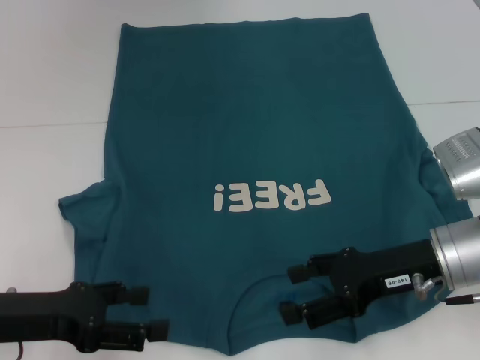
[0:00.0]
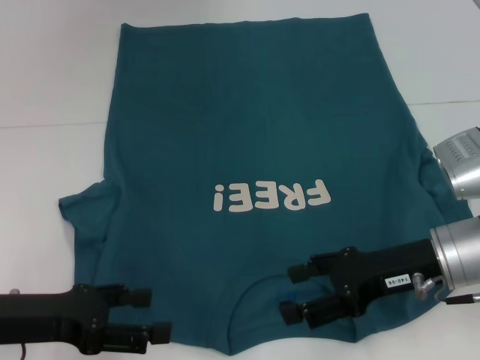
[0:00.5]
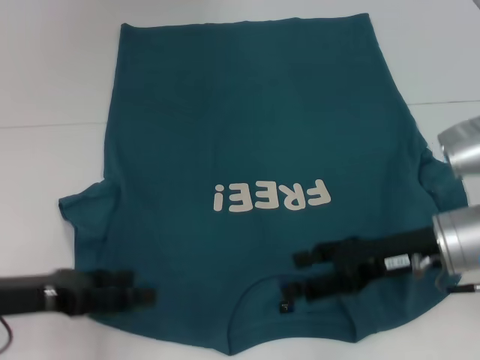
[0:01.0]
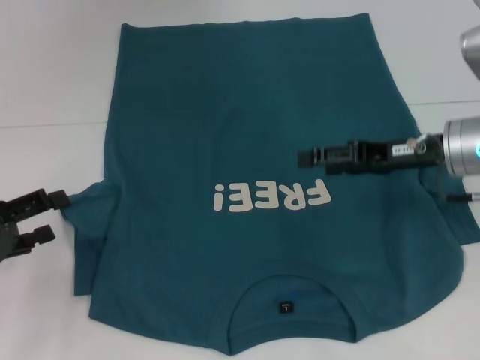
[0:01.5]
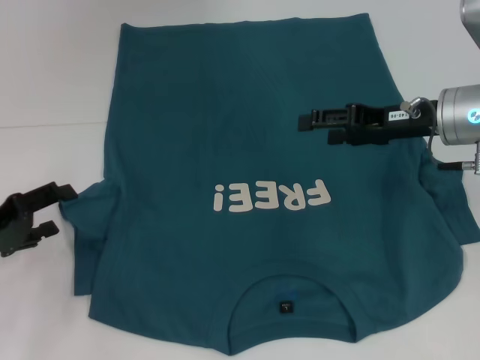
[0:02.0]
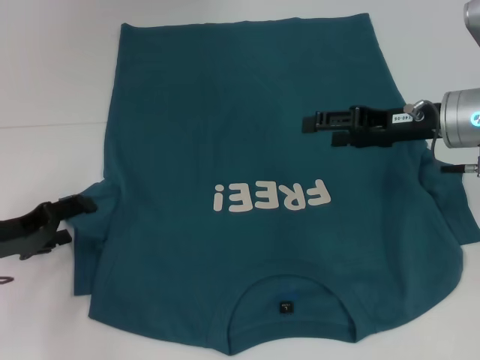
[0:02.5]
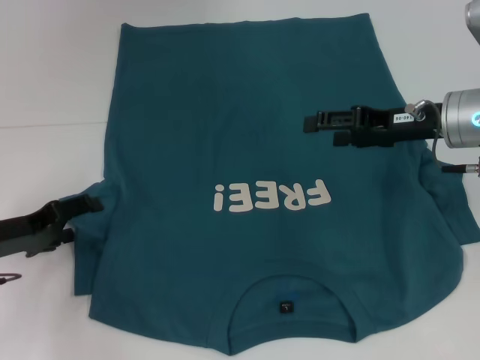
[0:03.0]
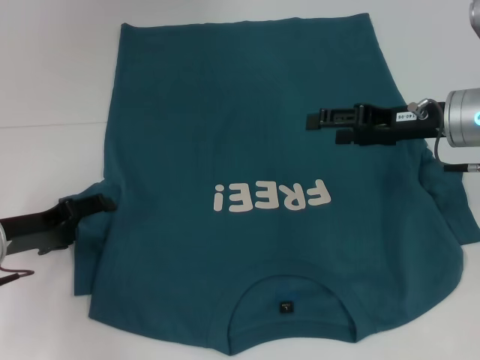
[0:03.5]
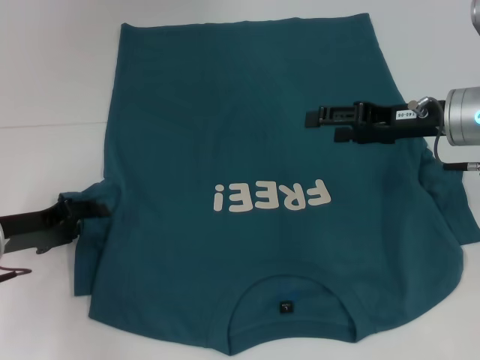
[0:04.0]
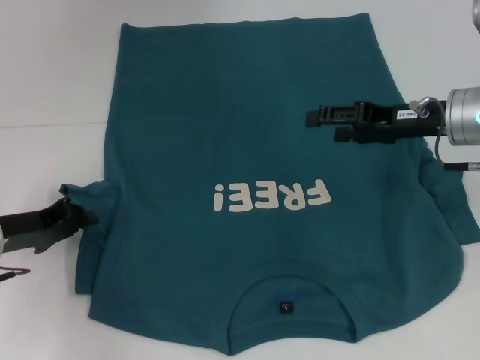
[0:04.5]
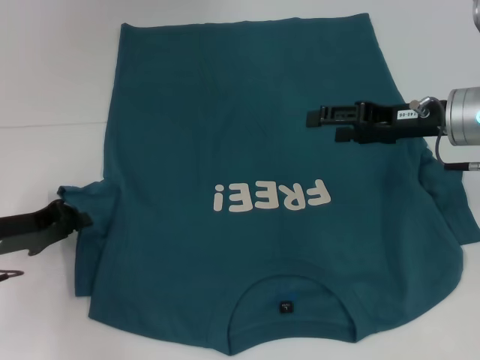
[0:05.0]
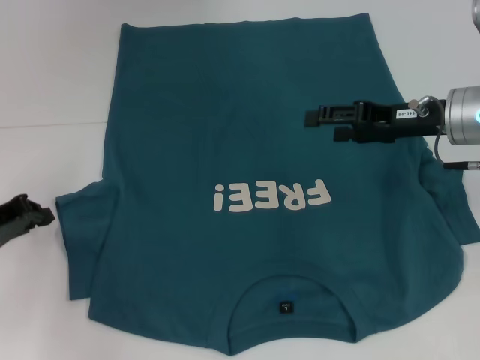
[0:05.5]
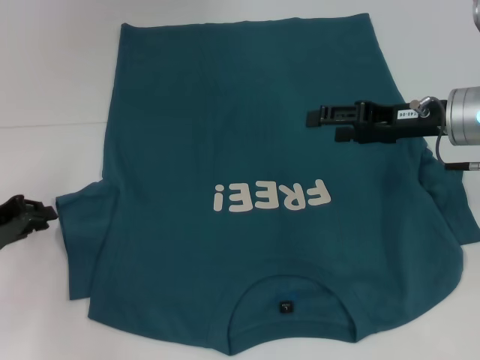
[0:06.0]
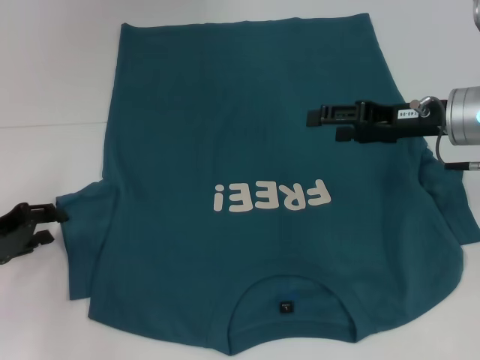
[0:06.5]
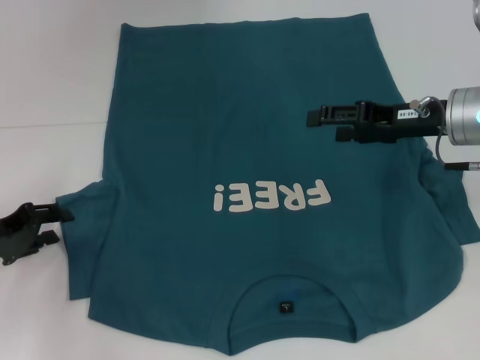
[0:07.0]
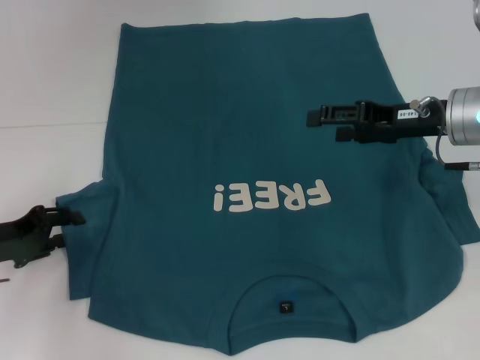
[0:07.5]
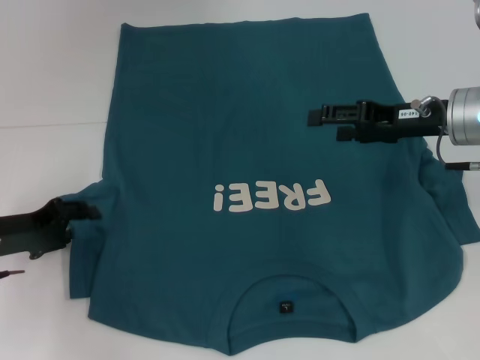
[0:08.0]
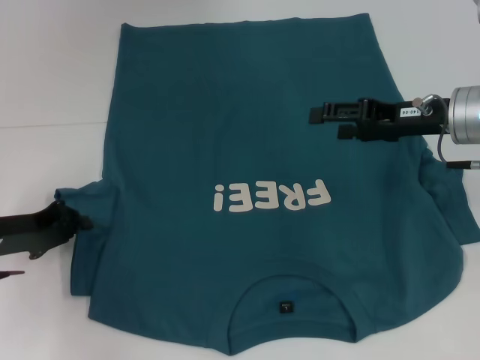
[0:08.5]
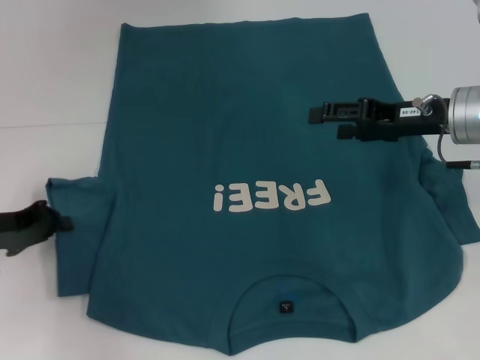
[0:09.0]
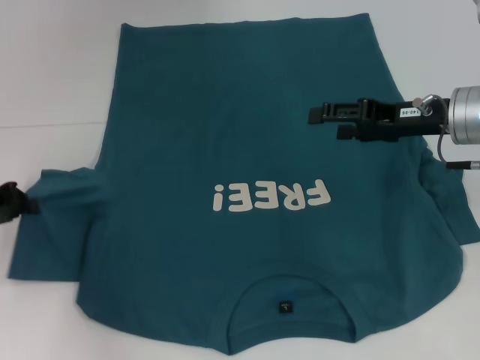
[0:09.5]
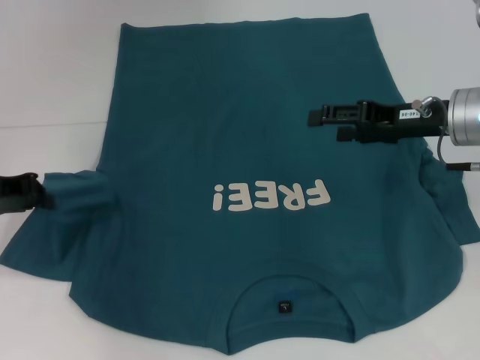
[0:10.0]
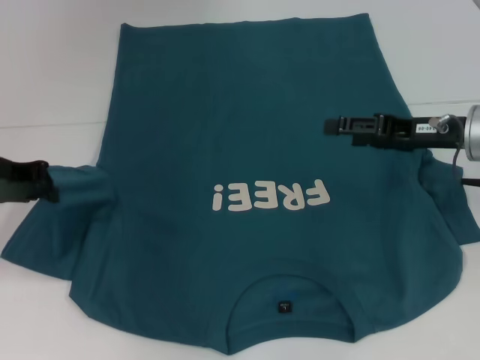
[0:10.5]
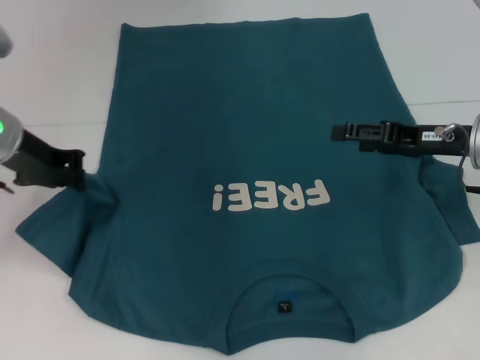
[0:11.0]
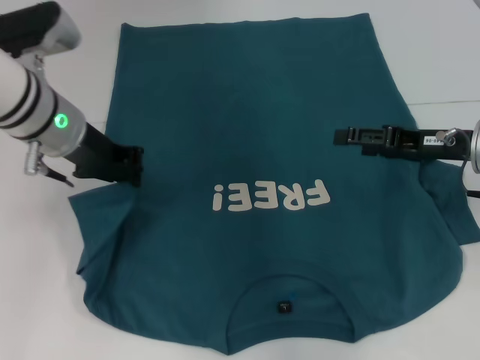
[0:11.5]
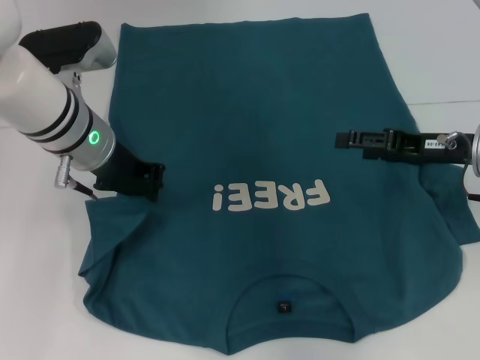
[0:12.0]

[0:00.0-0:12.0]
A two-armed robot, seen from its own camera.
0:00.0 to 0:02.0: The left gripper travels to the left and forward by roughly 10 cm. The right gripper travels forward and upward by about 10 cm.
0:02.0 to 0:04.0: The left gripper moves approximately 5 cm.
0:04.0 to 0:06.0: The left gripper closes its fingers.
0:06.0 to 0:08.0: The left gripper opens its fingers.
0:08.0 to 0:10.0: The left gripper shifts about 5 cm upward, and closes up.
0:10.0 to 0:12.0: The left gripper is displaced to the right by roughly 15 cm.

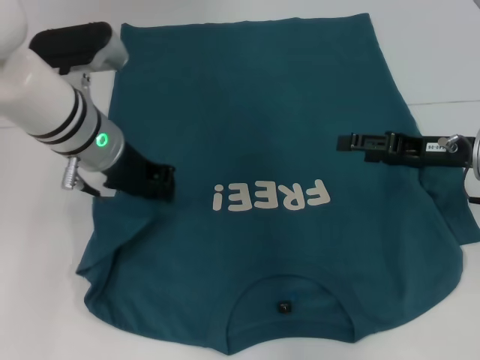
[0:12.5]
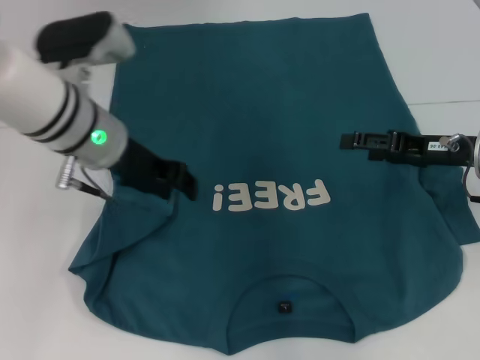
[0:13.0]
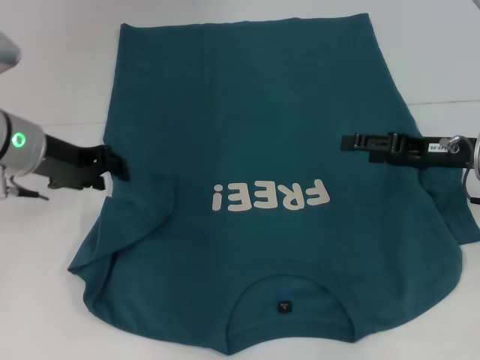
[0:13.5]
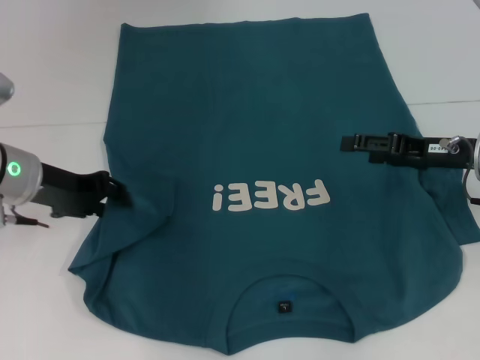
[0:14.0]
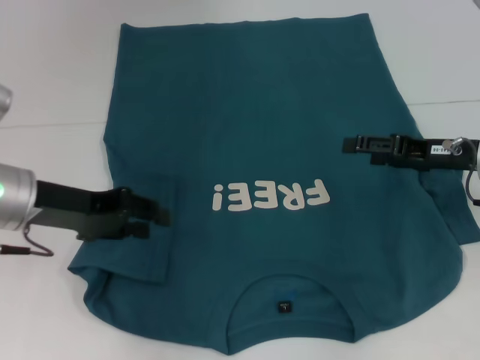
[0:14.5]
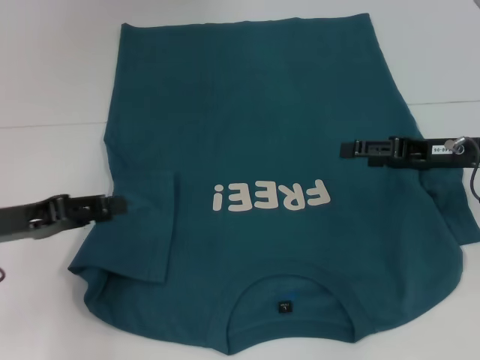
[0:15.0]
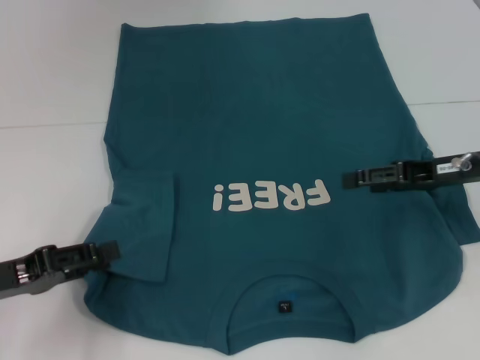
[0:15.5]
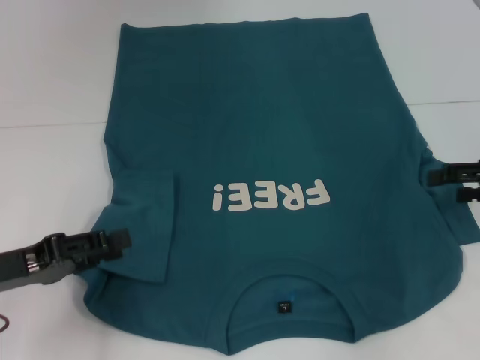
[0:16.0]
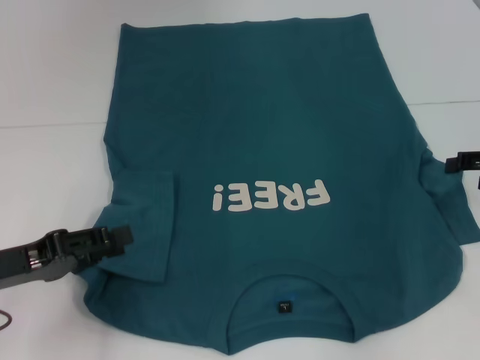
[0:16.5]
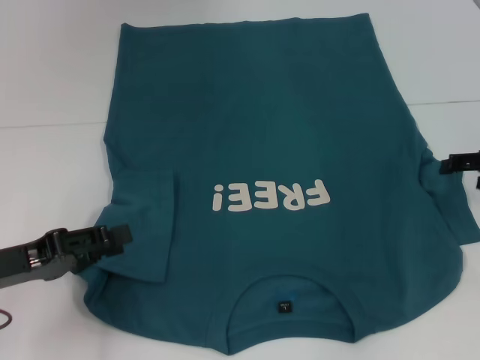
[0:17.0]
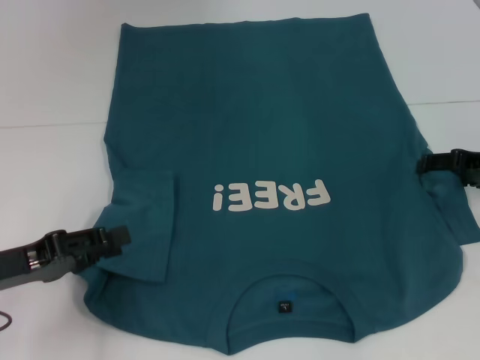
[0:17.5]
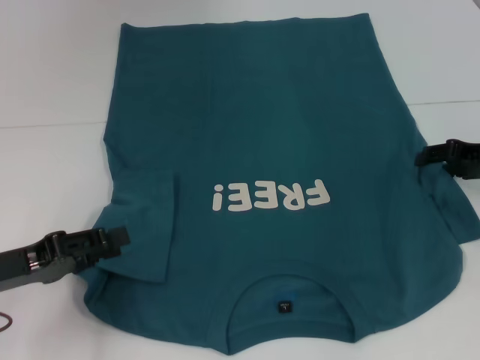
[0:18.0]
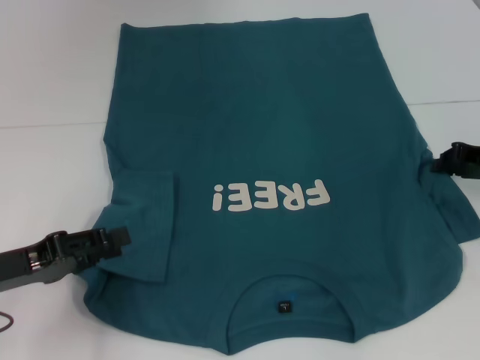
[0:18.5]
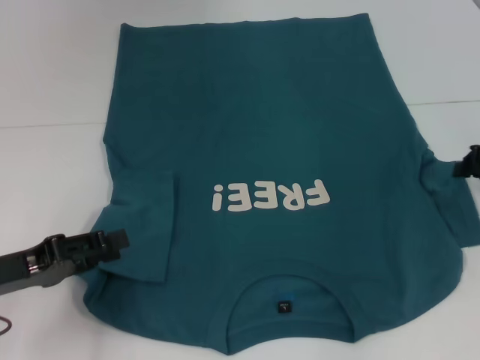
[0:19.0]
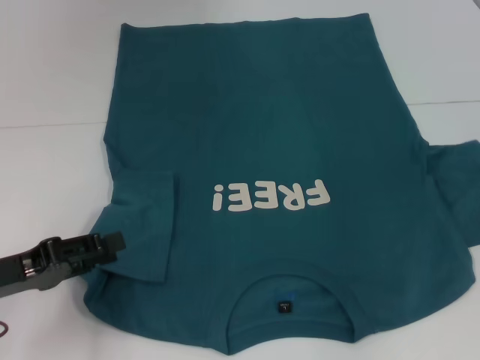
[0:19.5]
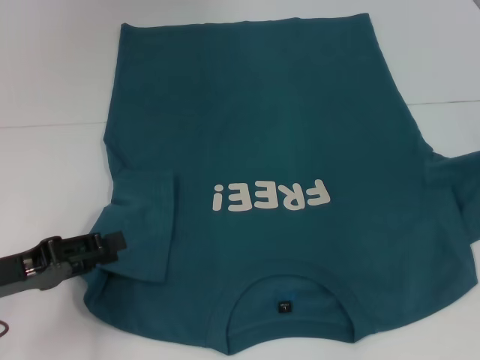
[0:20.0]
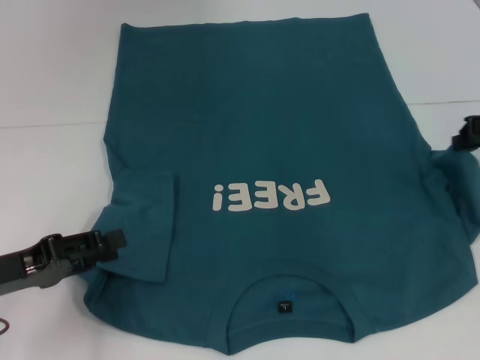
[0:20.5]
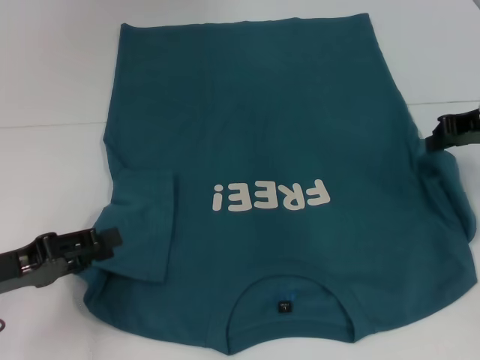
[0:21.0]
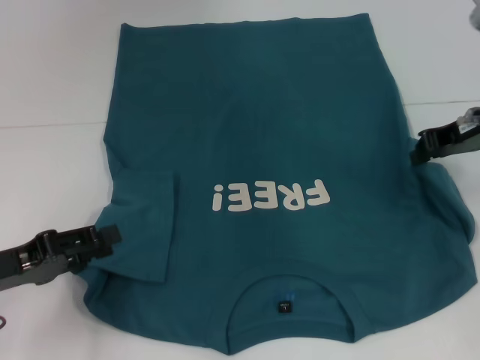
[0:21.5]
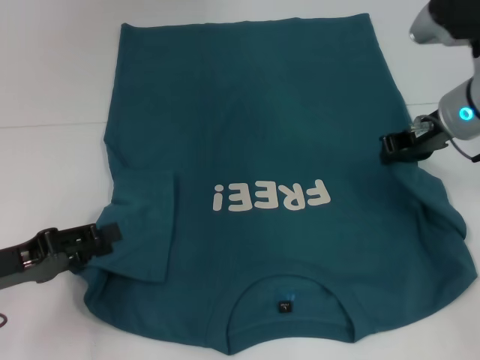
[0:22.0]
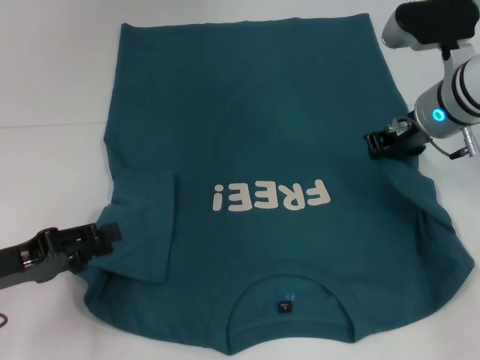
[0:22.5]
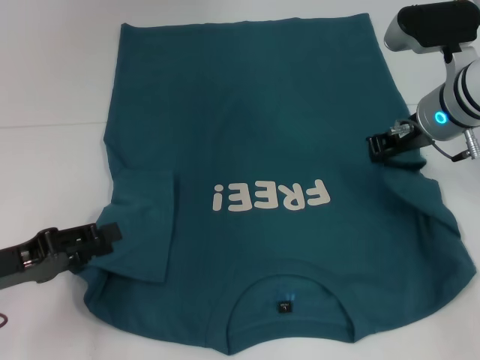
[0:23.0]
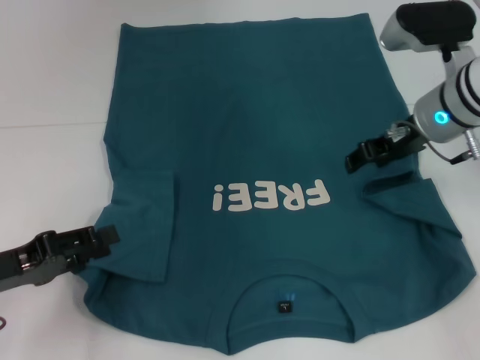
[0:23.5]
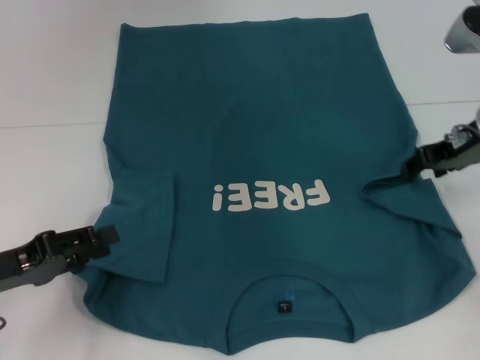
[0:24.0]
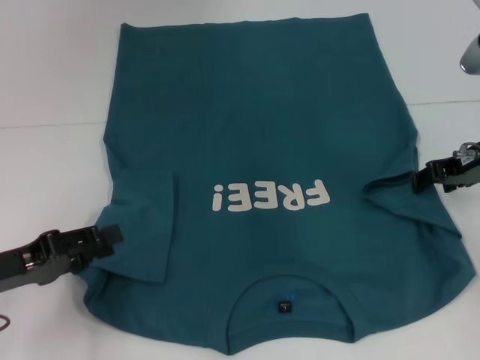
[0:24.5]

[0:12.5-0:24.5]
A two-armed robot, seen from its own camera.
0:12.5 to 0:14.5: The left gripper travels to the left and backward by some 10 cm, and opens its fingers.
0:14.5 to 0:16.5: The left gripper moves backward, to the left and downward, about 10 cm. The right gripper is displaced to the right by some 10 cm.
0:16.5 to 0:18.5: The right gripper changes place by about 5 cm, and closes up.
0:18.5 to 0:20.5: The right gripper moves upward, approximately 5 cm.
0:20.5 to 0:22.5: The right gripper goes some 10 cm to the left.
0:22.5 to 0:24.5: The right gripper shifts about 5 cm to the right, and opens.

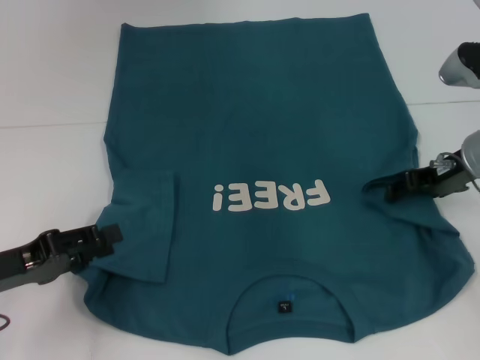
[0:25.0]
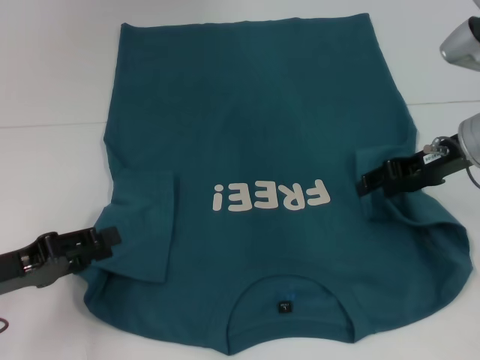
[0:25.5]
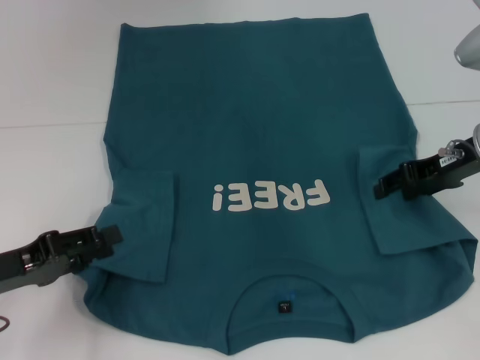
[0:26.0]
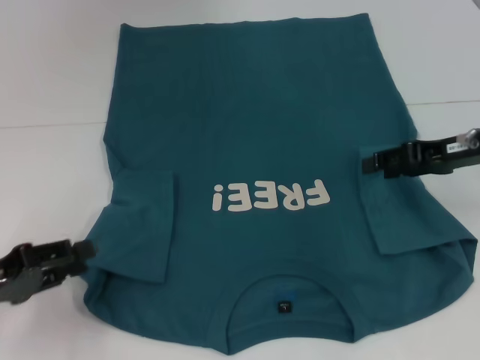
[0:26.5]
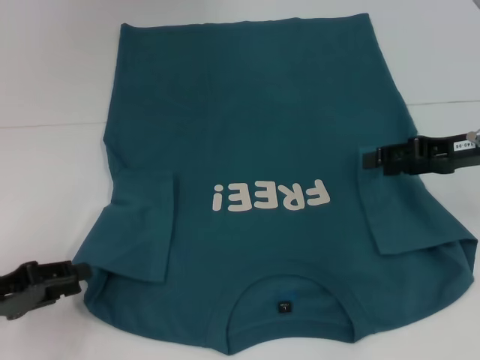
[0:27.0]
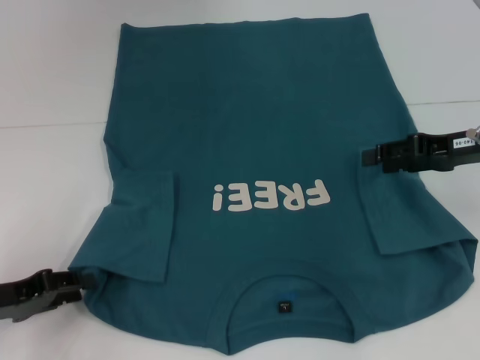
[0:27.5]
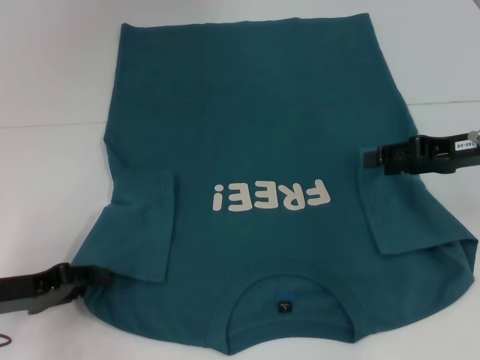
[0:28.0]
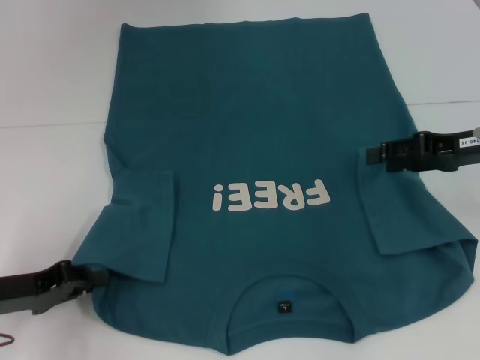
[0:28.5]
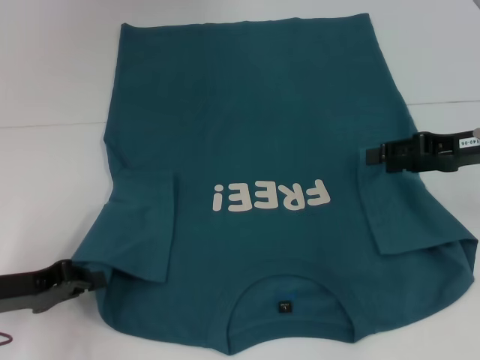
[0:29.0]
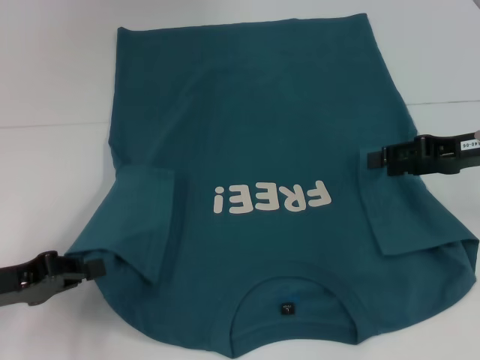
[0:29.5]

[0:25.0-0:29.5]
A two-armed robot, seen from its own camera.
Step, 0:26.5 to 0:29.0: Grab the bottom left corner with your left hand.
0:25.0 to 0:27.0: The right gripper ends up approximately 5 cm from where it was.
0:27.0 to 0:29.5: The left gripper closes.
